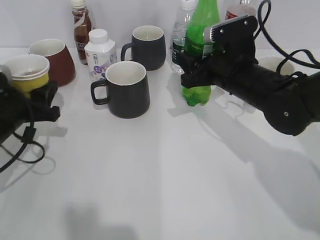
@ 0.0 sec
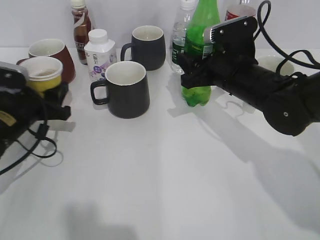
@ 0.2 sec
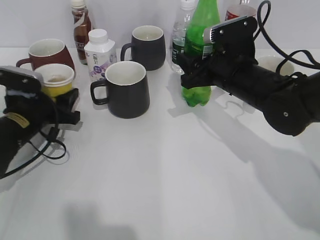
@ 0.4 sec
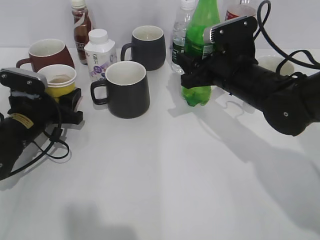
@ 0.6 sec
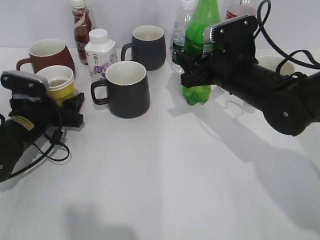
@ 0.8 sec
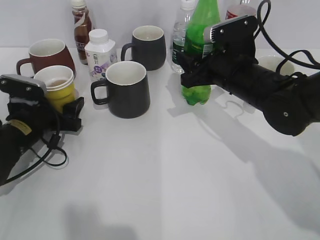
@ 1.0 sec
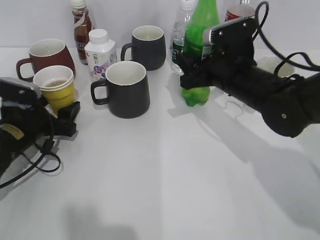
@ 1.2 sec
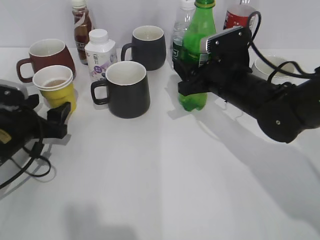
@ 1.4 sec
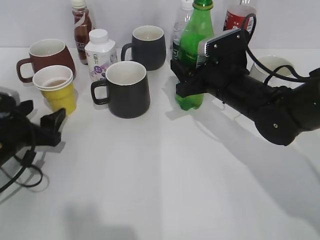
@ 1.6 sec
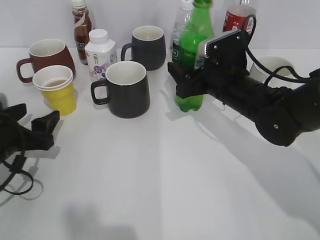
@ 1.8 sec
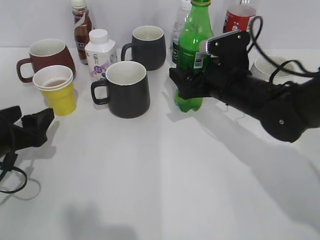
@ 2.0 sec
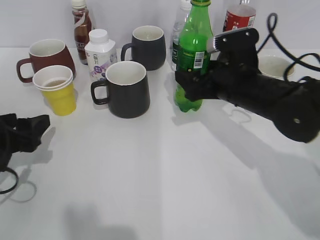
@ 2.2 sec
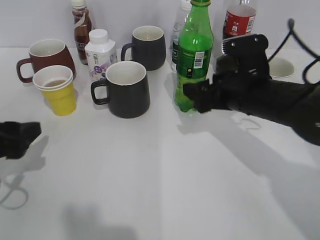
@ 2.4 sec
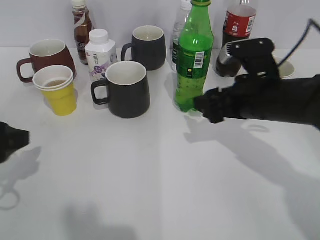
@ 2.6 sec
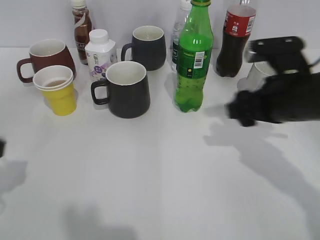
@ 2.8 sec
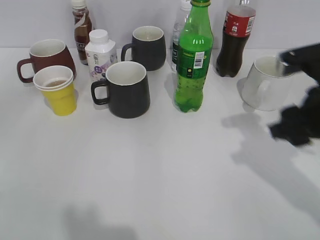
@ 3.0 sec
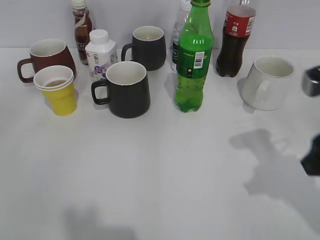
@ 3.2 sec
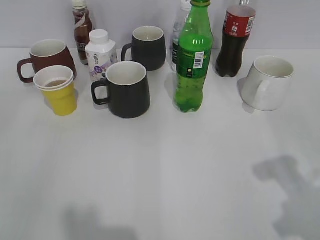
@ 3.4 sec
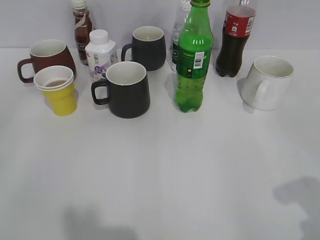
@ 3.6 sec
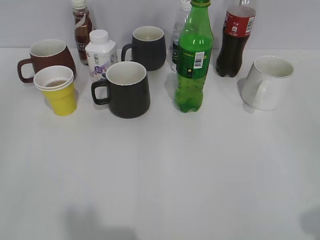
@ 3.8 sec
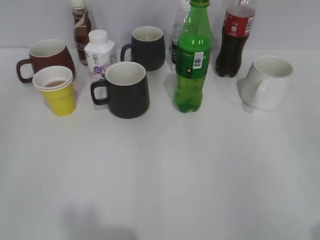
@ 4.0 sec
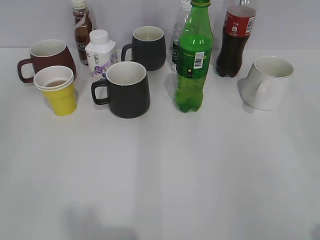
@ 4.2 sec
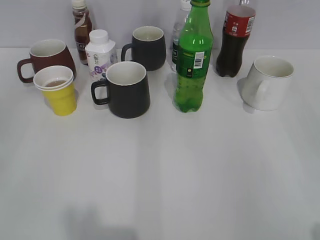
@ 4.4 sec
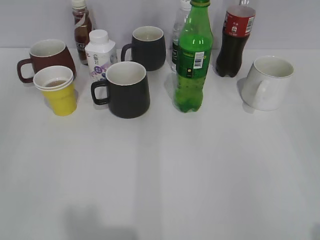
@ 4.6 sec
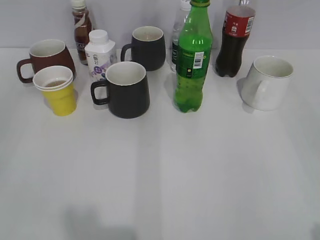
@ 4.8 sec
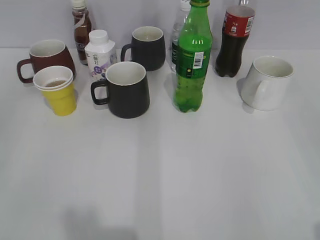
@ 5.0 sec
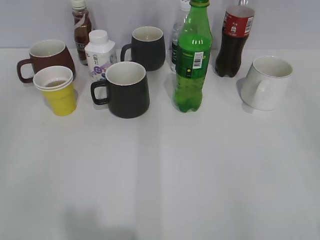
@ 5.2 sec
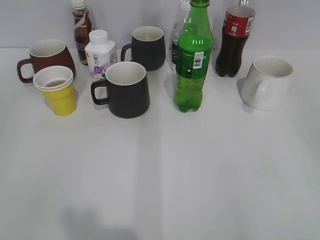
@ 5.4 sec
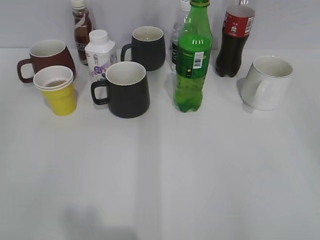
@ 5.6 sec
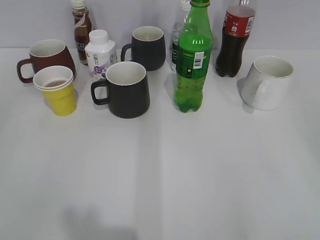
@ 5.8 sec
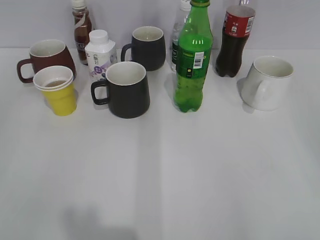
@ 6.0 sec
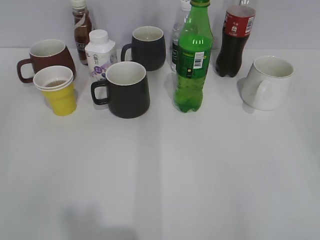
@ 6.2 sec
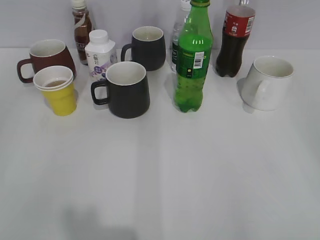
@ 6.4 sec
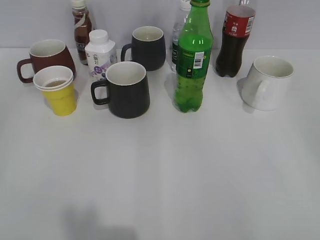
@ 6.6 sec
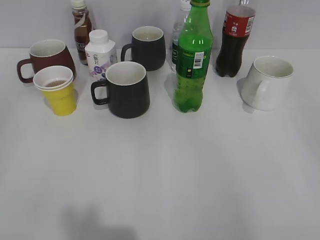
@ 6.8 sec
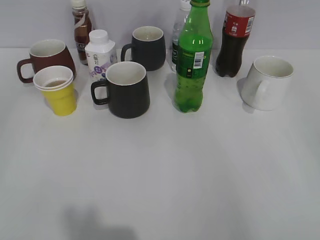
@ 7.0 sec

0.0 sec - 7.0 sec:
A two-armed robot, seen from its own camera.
Step, 0.8 sec - 2.2 sec: Place the sprite bottle on the table with right gripper.
0.0 sec - 1.4 sec: The left gripper opens up.
1.4 sec - 2.8 sec: The right gripper is displaced backward by about 5 cm, and opens and closes again. Meanwhile the left gripper goes about 20 cm upward and backward.
2.8 sec - 4.2 sec: The left gripper heads backward, covering approximately 15 cm; the right gripper travels backward and to the right by about 30 cm, and closes its fingers.
